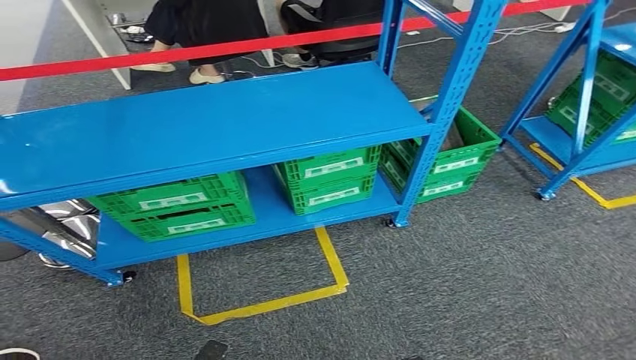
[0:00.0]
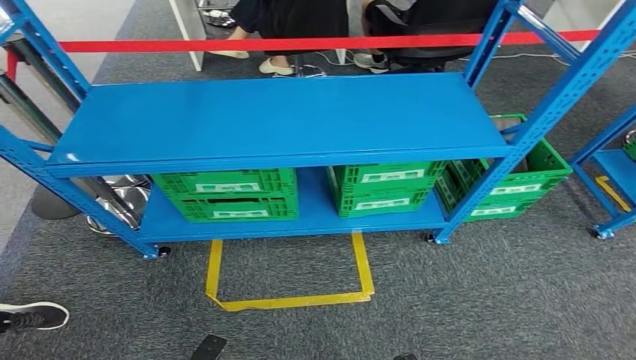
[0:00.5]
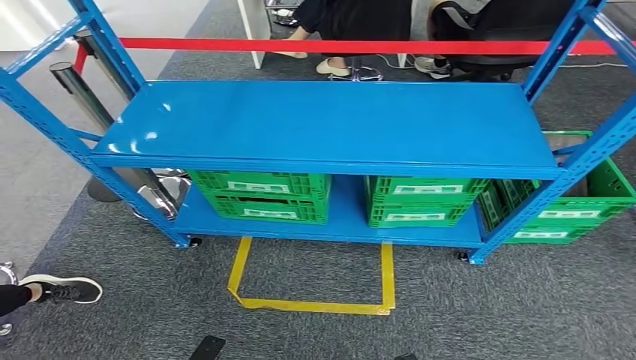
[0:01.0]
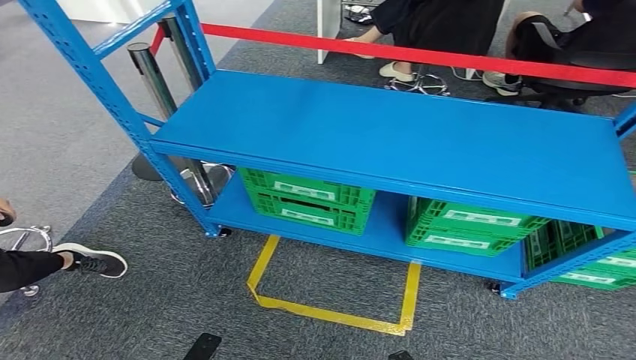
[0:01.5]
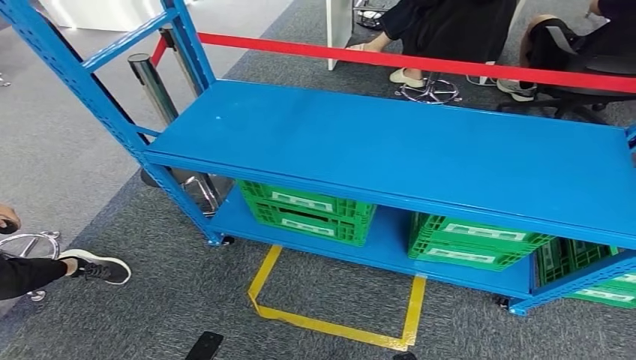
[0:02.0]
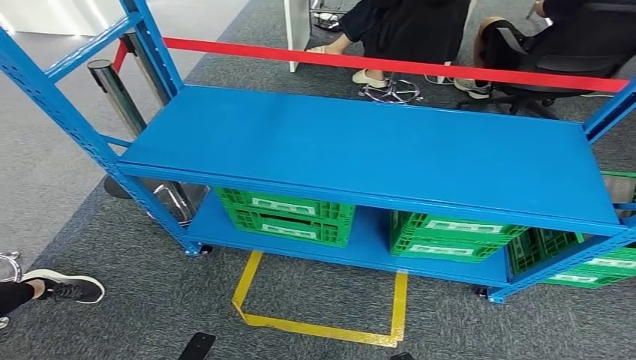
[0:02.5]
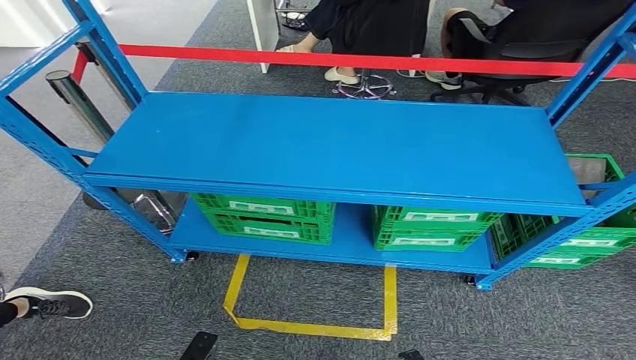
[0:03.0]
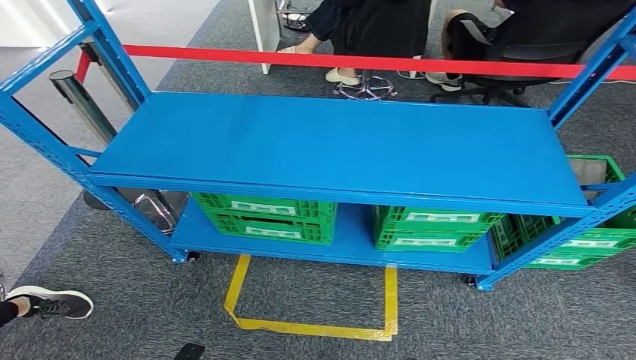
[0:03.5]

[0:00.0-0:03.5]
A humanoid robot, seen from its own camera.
Step, 0:00.0 to 0:03.5: Move to the initial position of the workbench.
